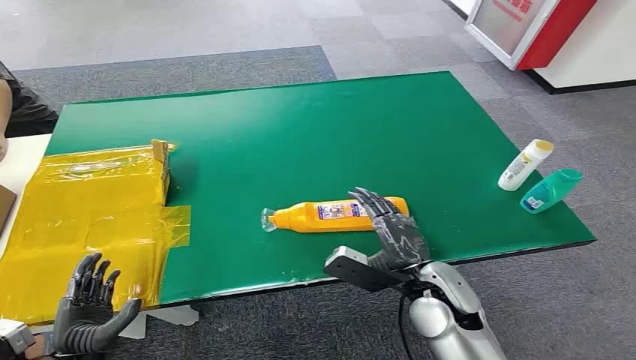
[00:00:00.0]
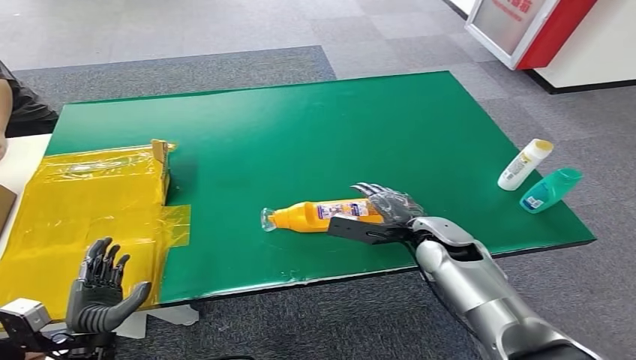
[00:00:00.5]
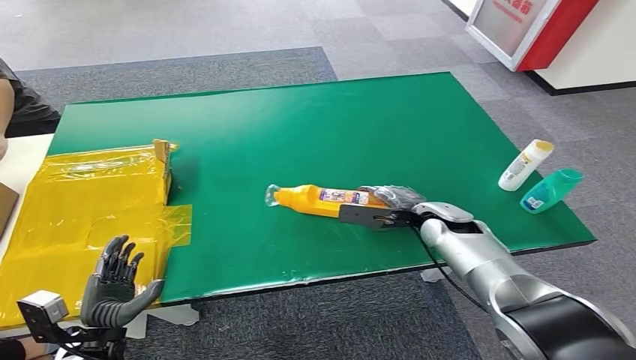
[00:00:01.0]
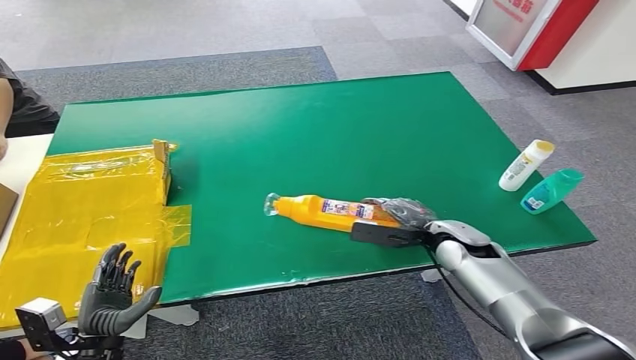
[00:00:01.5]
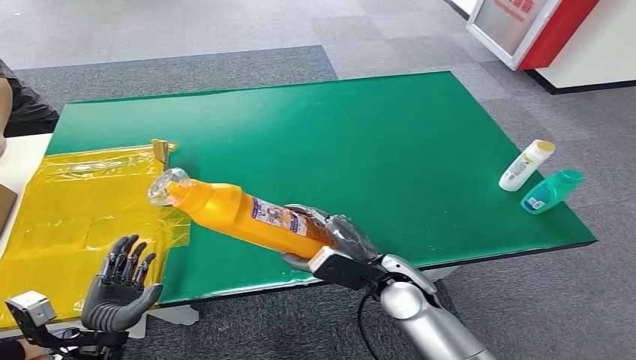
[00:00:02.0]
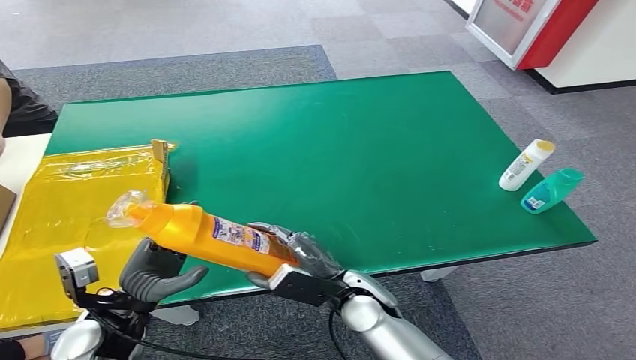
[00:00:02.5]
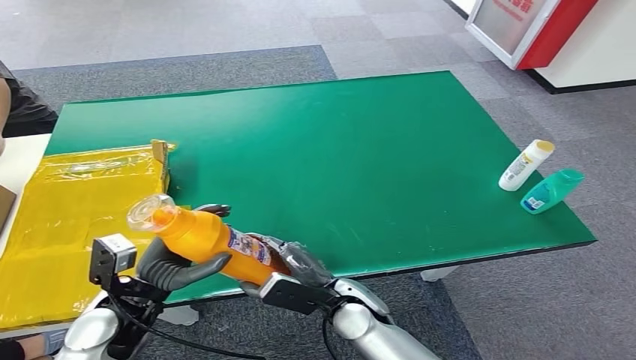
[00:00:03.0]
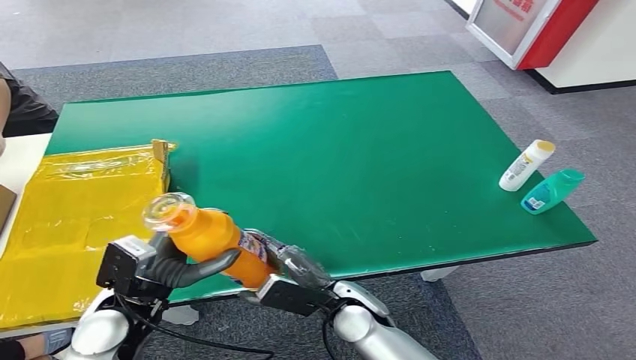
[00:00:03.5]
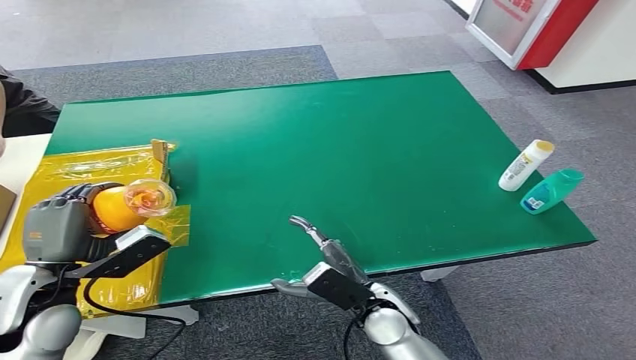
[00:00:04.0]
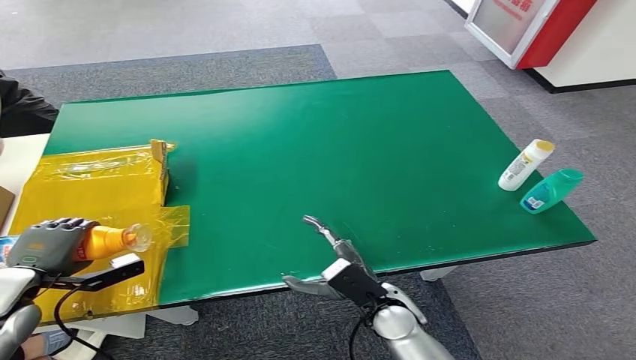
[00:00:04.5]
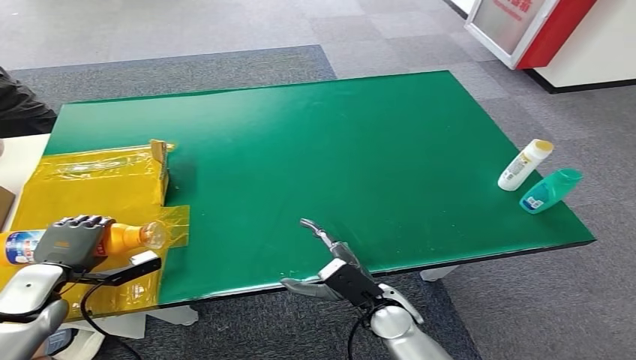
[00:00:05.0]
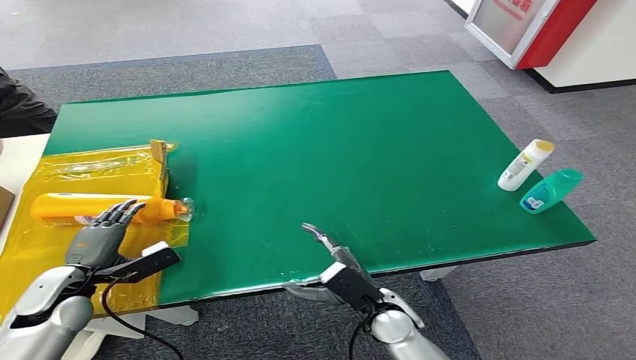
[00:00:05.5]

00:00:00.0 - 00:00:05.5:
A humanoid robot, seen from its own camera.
Step, 00:00:00.0 - 00:00:01.5: Pick up the bottle from the table.
Step, 00:00:02.0 - 00:00:05.5: Turn the bottle to the front side.
00:00:02.0 - 00:00:03.5: The right hand goes about 5 cm to the left. Meanwhile the left hand moves upward, forward and to the right, some 15 cm.
00:00:03.5 - 00:00:05.5: The right hand travels to the right by some 5 cm. Meanwhile the left hand heads to the left and downward, covering about 15 cm.

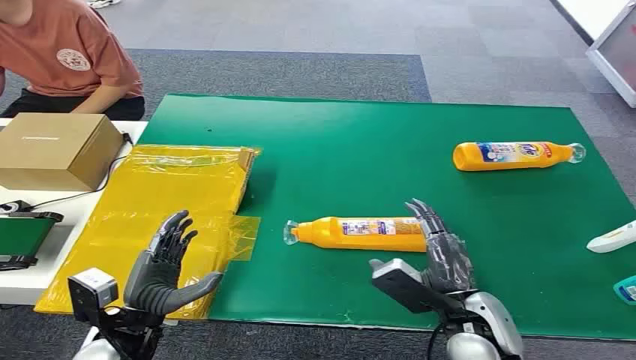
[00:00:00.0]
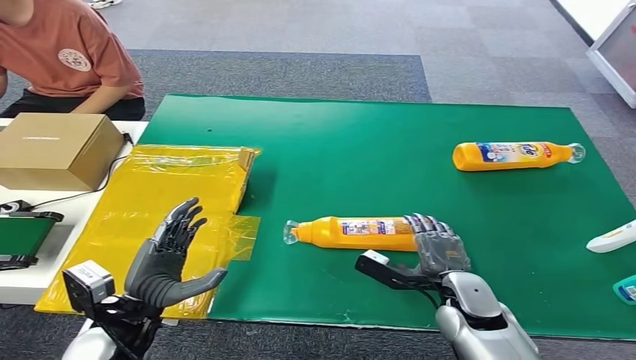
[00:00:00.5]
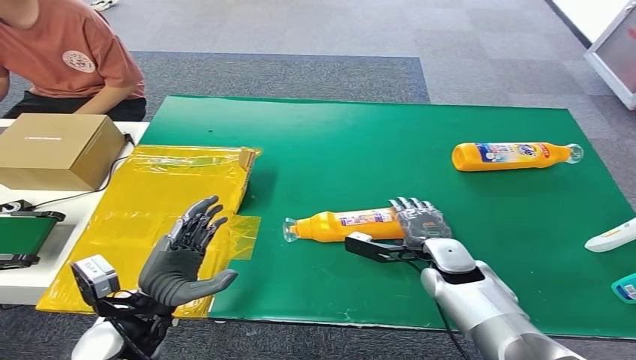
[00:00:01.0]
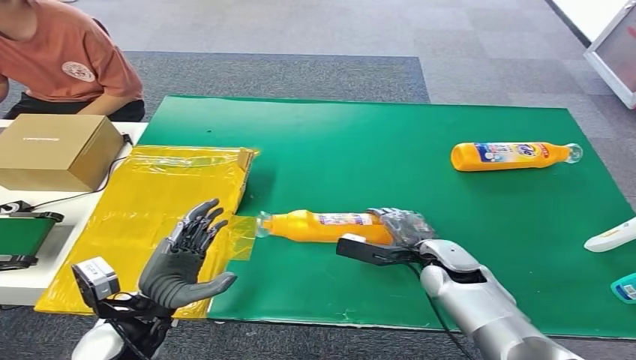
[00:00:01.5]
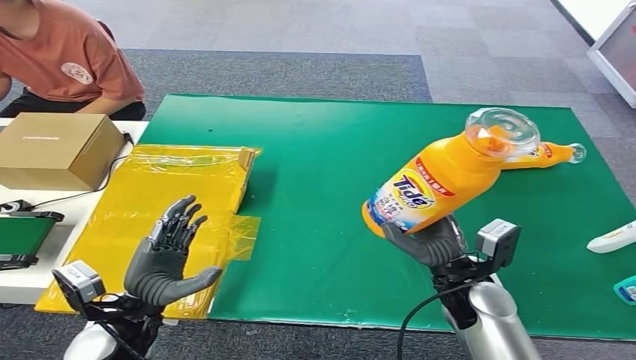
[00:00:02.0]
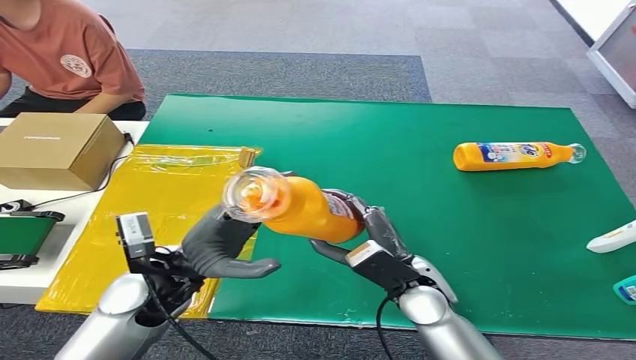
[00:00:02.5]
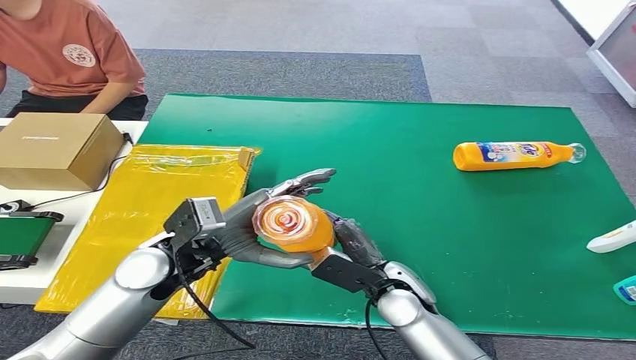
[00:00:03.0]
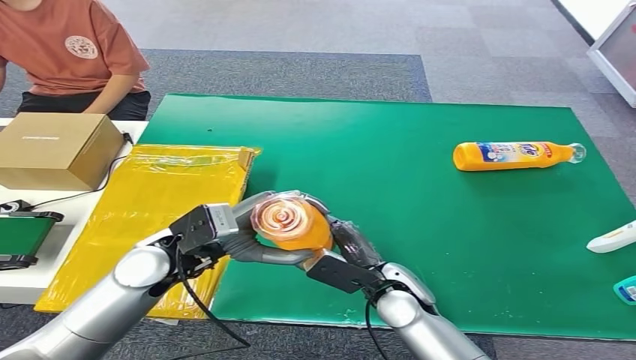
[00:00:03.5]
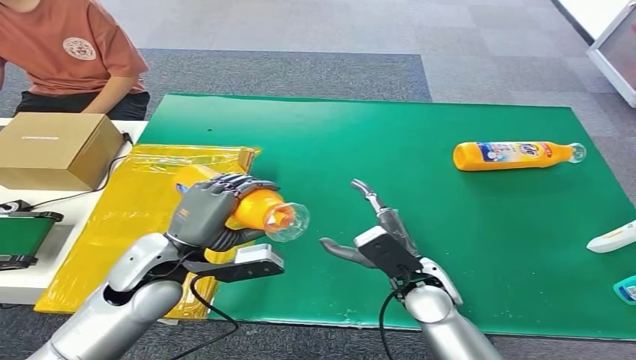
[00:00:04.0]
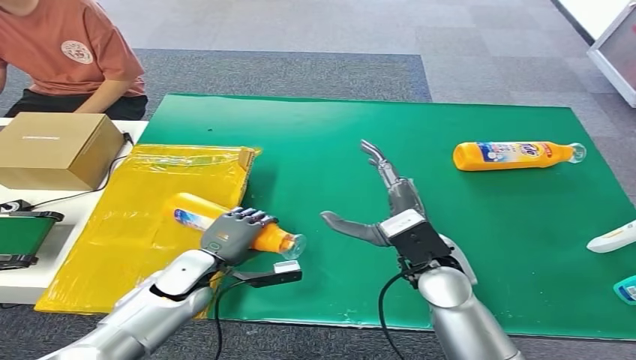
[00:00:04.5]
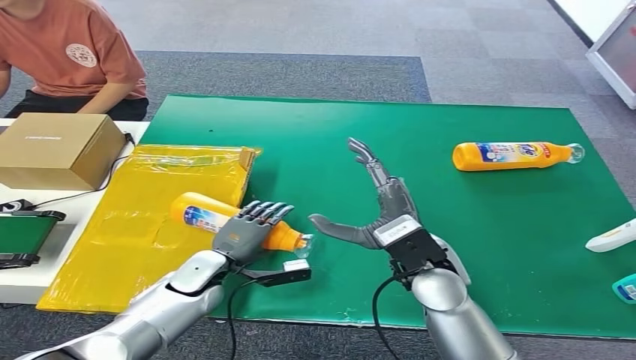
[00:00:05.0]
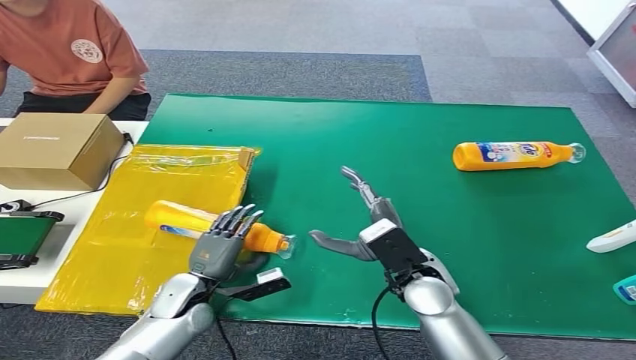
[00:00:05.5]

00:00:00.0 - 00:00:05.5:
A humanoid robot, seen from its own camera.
Step, 00:00:00.0 - 00:00:01.5: Pick up the bottle from the table.
Step, 00:00:02.0 - 00:00:05.5: Turn the bottle to the front side.
00:00:03.5 - 00:00:05.5: The left hand shifts approximately 20 cm downward.
